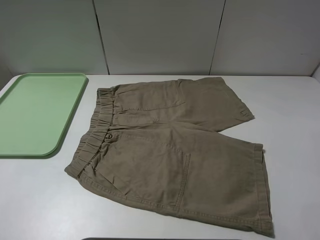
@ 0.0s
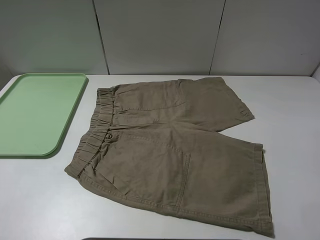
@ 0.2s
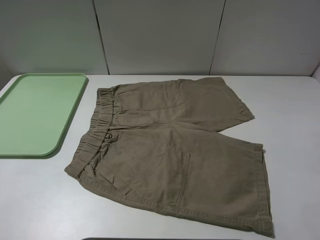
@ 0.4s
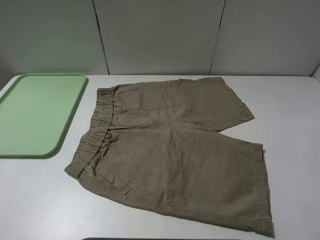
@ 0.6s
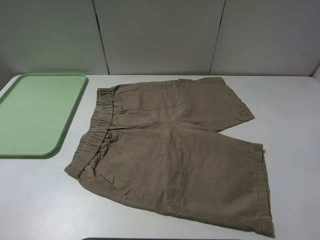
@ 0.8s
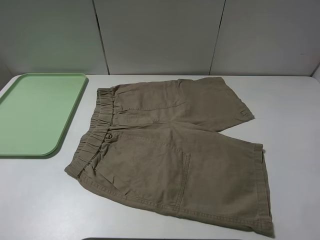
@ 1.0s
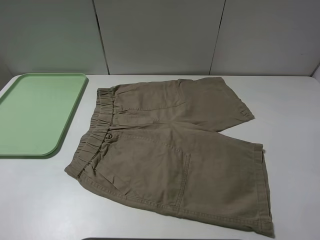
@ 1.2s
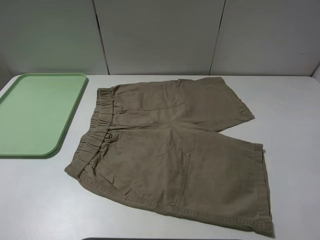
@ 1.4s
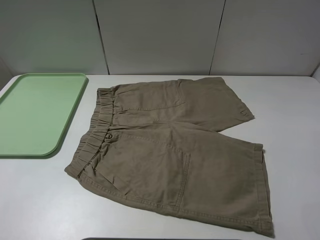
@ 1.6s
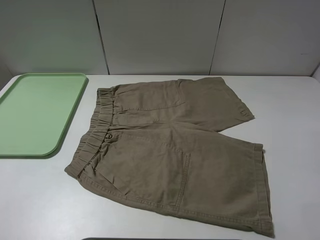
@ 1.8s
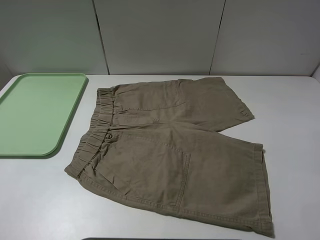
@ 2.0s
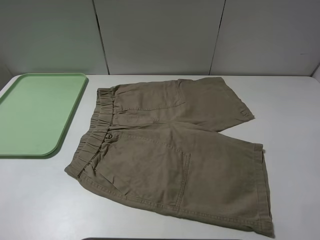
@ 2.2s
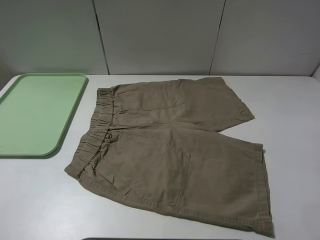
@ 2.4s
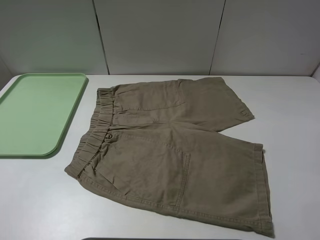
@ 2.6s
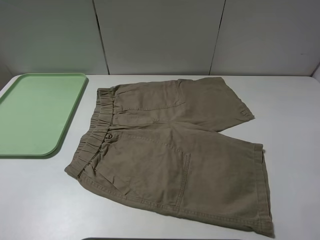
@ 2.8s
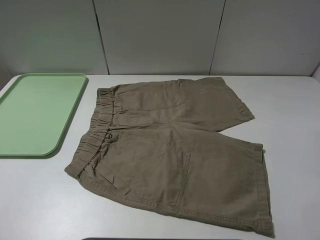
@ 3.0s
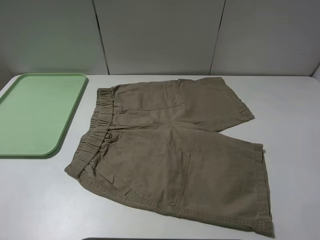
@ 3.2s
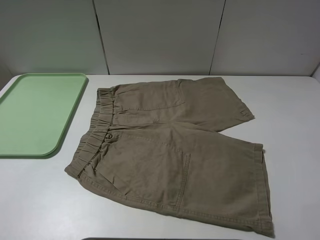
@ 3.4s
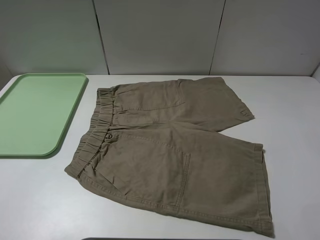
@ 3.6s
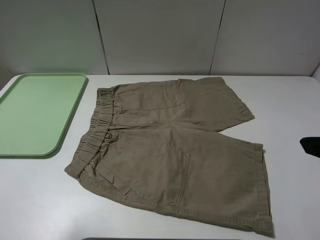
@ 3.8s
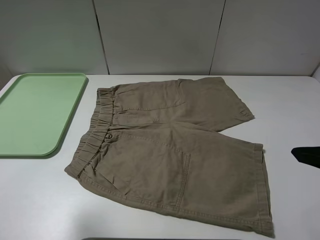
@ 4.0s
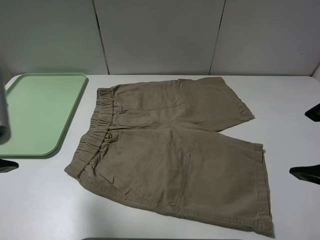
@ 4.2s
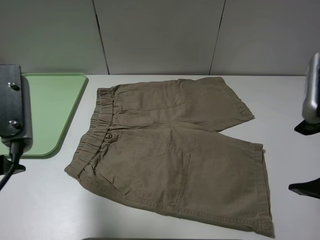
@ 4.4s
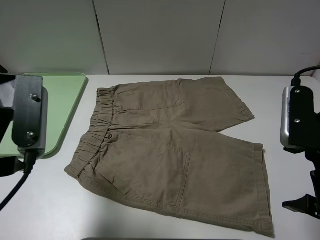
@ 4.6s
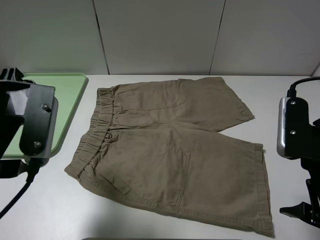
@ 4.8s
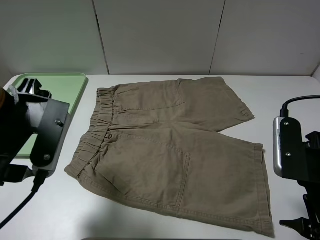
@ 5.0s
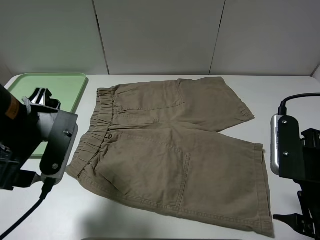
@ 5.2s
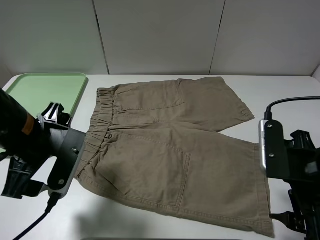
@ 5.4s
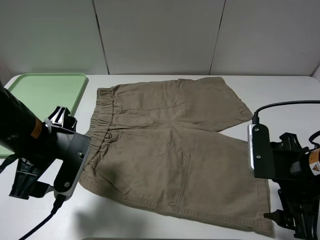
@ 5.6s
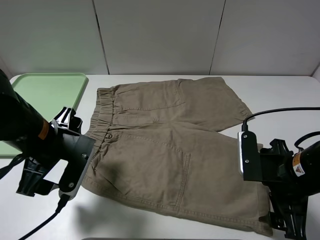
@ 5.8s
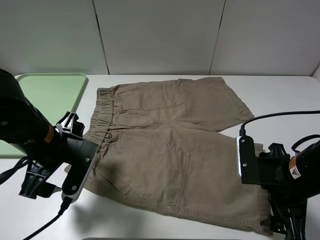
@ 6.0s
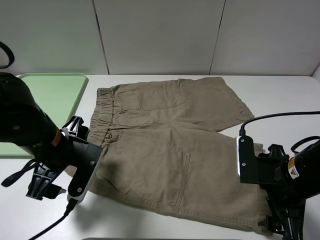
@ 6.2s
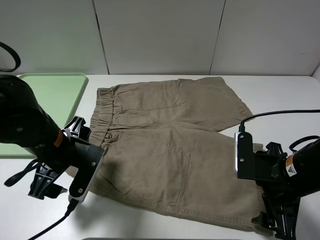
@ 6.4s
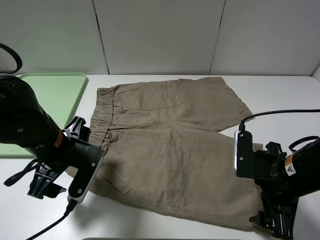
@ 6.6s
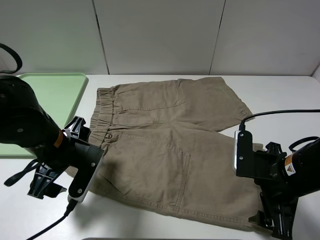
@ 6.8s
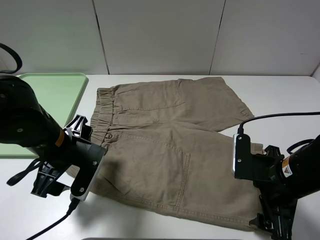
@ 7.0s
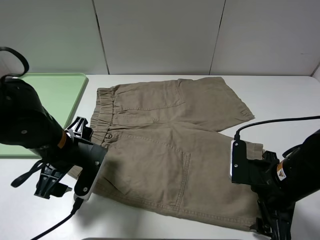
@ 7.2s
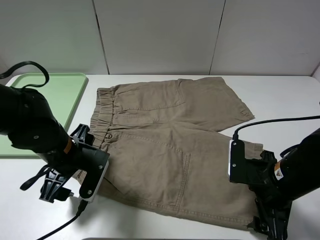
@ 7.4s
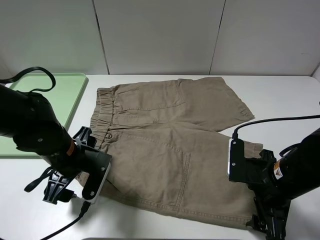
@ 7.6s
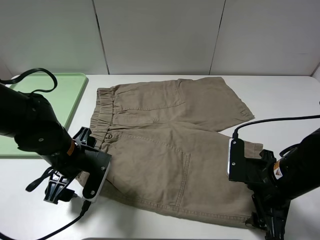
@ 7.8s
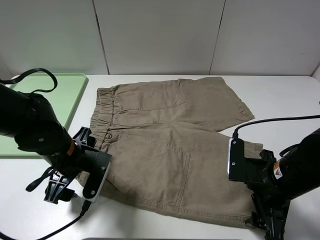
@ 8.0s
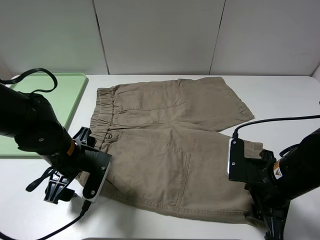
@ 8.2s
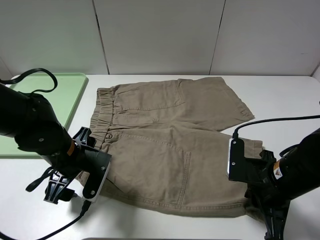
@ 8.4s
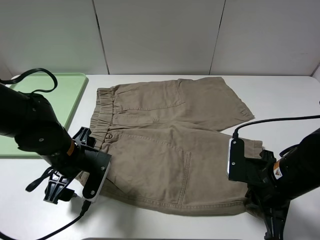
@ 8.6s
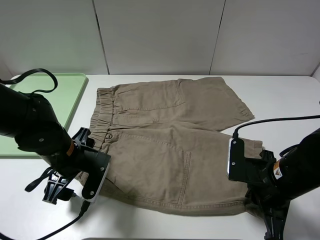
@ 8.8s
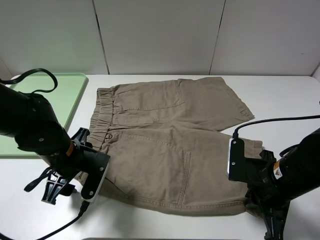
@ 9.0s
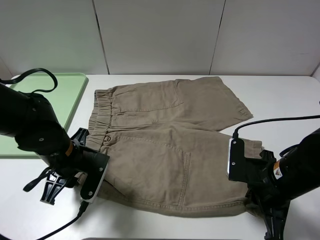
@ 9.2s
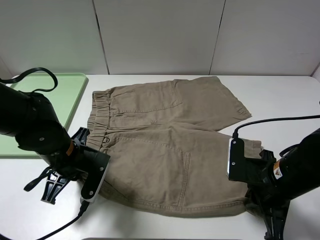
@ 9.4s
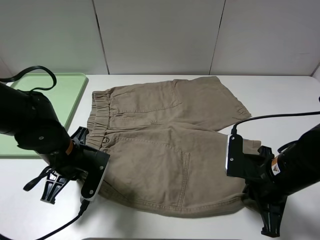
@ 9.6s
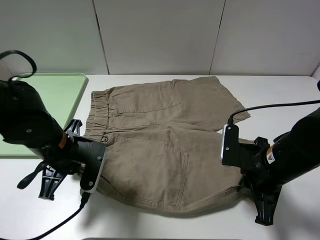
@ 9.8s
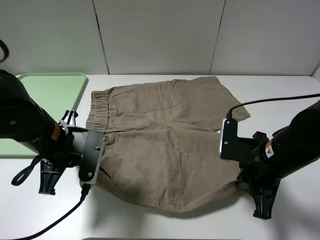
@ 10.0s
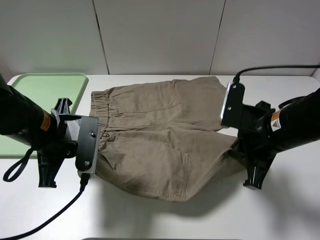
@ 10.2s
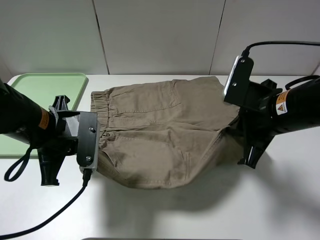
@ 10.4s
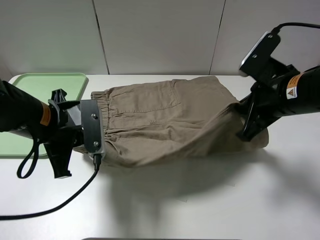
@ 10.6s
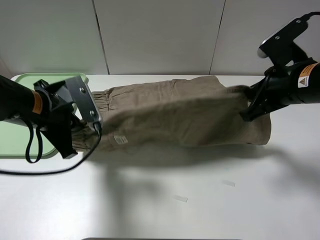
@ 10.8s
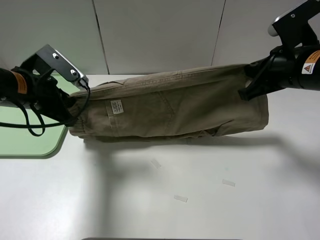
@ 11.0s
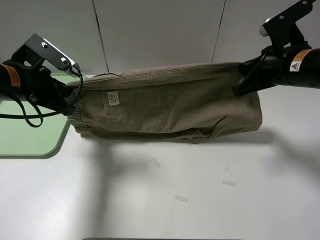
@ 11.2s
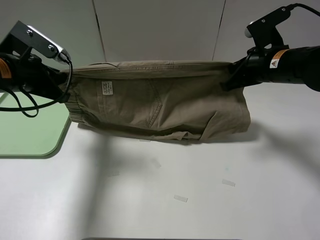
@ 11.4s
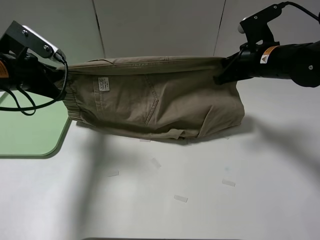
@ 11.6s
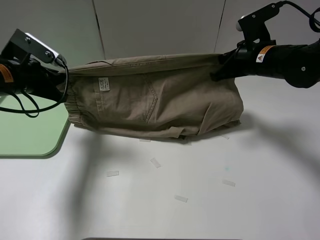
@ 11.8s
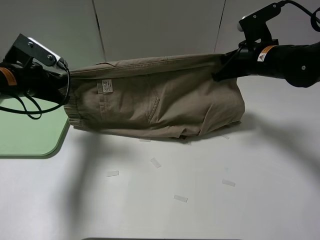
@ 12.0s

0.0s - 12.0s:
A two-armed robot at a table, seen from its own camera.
Task of the whole recording: fold the khaki jeans in half with two grippers, then fold them in half again, and use the left claw to place the folded fold khaki jeans on the tray.
Step, 0.0s - 9.2s: Grasp the khaki trousers with the left gripper.
0.0s - 1.6s: Neither gripper changes place.
3.0s - 4.4s: The left gripper travels forward and to the right by approximately 20 cm. Meanwhile the right gripper goes approximately 15 cm forward and to the left.
4.4s - 6.0s: The grippers both shift downward by approximately 15 cm.
6.0s - 7.6s: The left gripper is displaced downward by some 5 cm.
7.6s - 9.0s: The right gripper closes up.
9.0s - 10.4s: The right gripper heads upward and forward, covering about 10 cm; the left gripper goes some 10 cm upward, and closes.
10.4s - 12.0s: The left gripper is displaced to the left and forward by about 15 cm. The right gripper travels forward by some 15 cm.

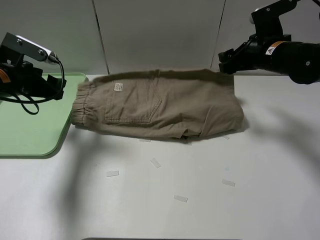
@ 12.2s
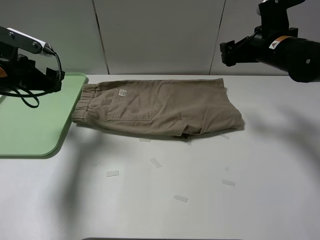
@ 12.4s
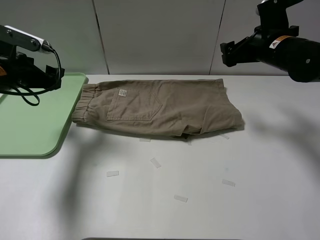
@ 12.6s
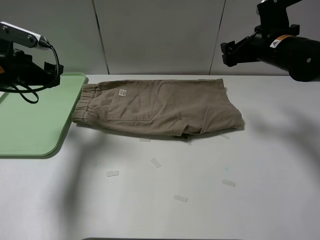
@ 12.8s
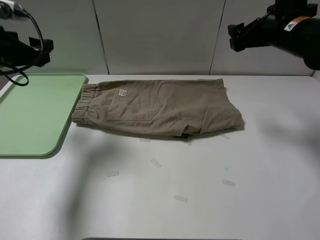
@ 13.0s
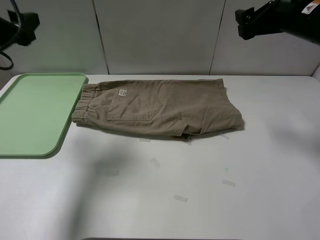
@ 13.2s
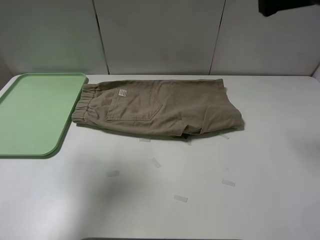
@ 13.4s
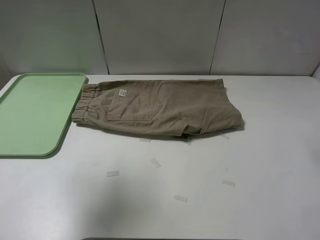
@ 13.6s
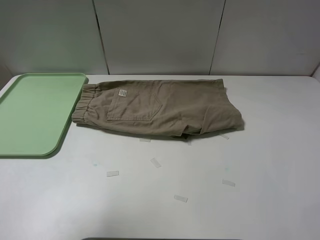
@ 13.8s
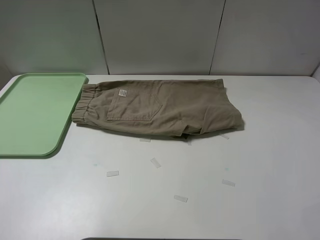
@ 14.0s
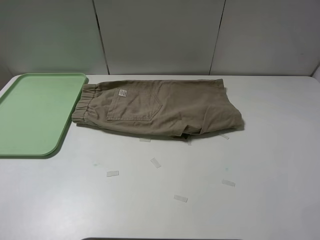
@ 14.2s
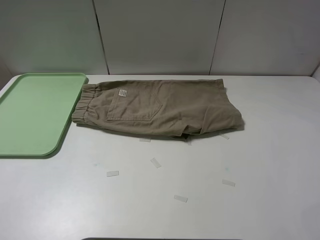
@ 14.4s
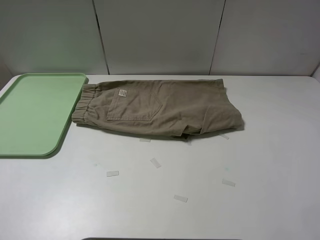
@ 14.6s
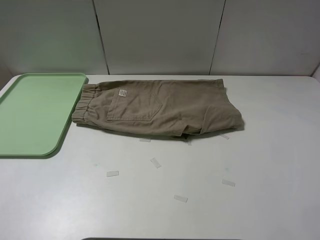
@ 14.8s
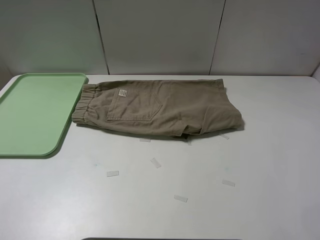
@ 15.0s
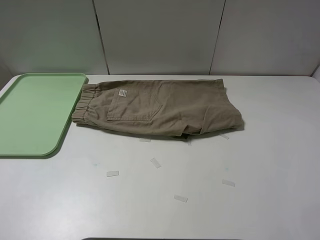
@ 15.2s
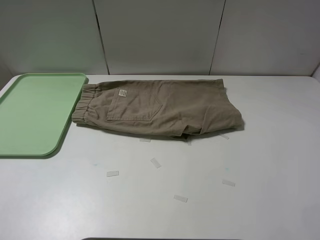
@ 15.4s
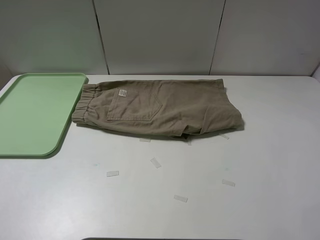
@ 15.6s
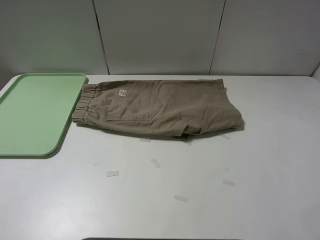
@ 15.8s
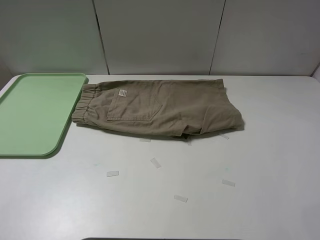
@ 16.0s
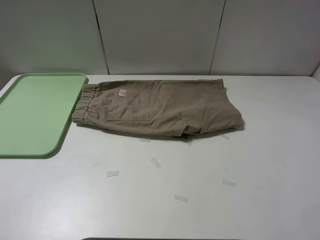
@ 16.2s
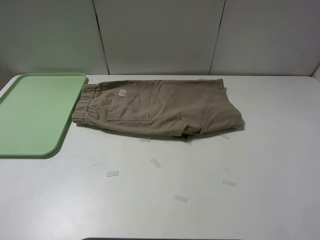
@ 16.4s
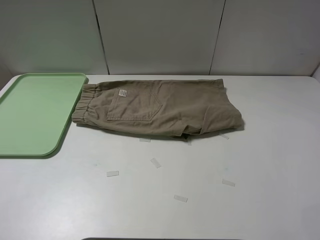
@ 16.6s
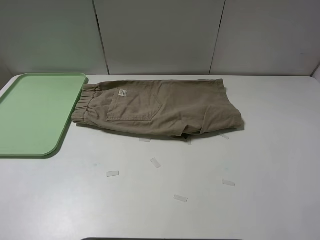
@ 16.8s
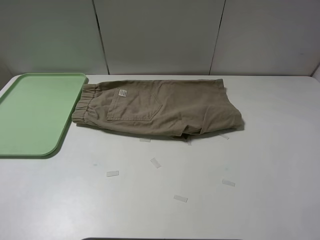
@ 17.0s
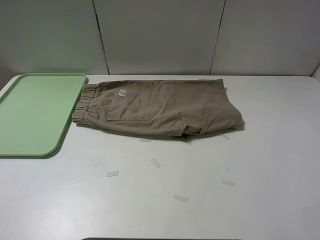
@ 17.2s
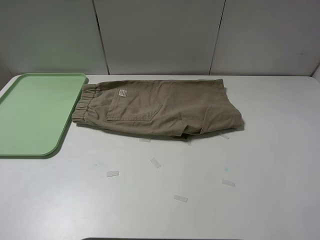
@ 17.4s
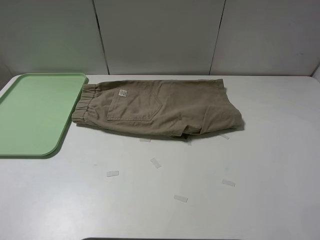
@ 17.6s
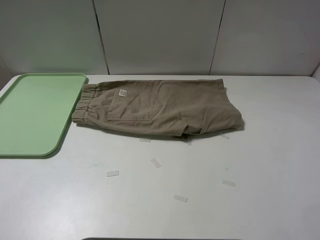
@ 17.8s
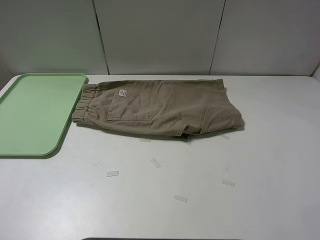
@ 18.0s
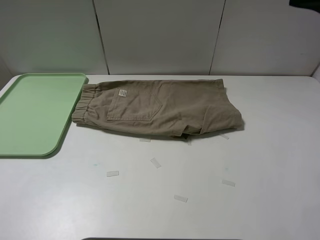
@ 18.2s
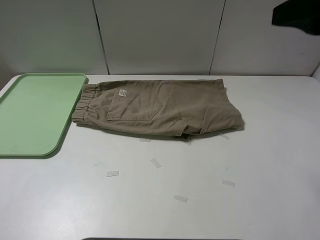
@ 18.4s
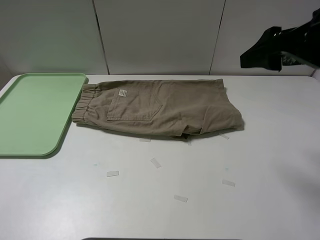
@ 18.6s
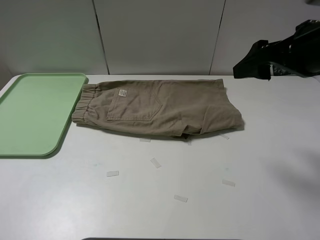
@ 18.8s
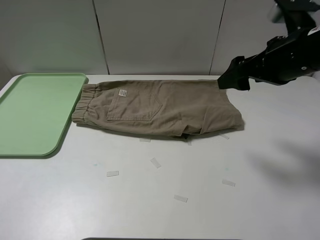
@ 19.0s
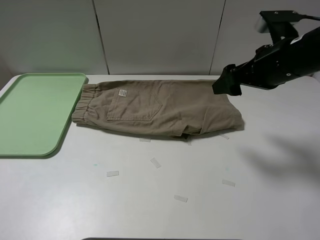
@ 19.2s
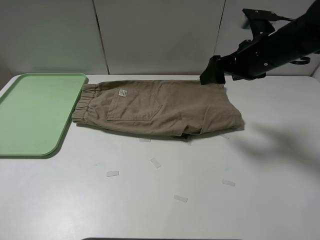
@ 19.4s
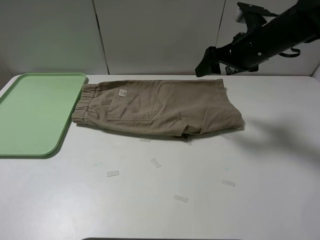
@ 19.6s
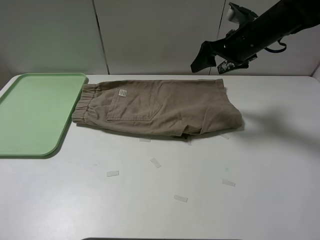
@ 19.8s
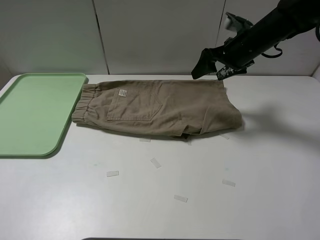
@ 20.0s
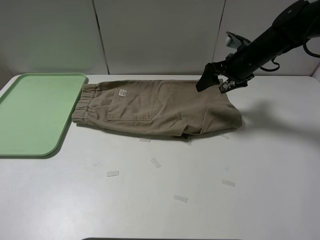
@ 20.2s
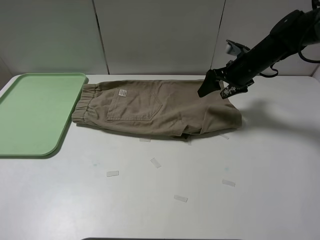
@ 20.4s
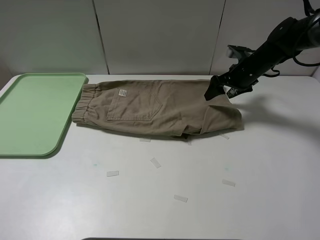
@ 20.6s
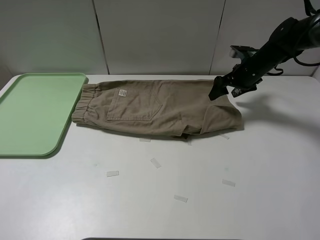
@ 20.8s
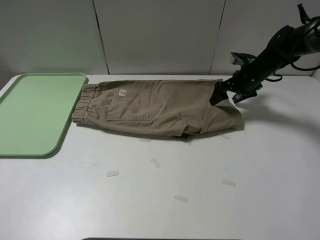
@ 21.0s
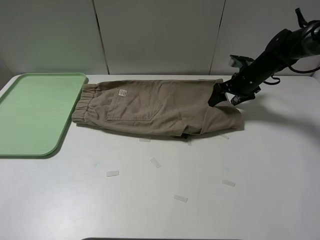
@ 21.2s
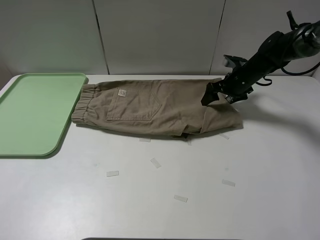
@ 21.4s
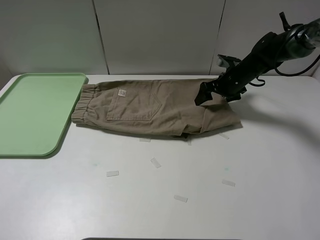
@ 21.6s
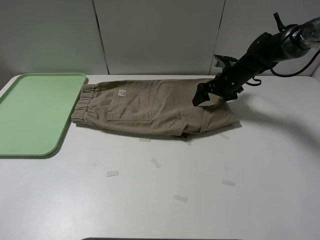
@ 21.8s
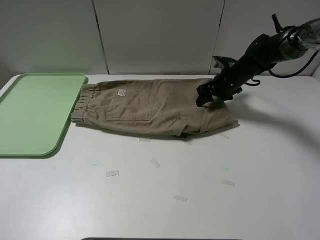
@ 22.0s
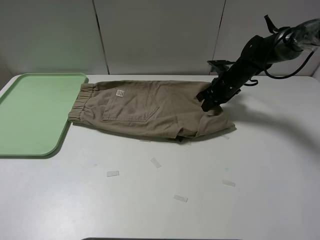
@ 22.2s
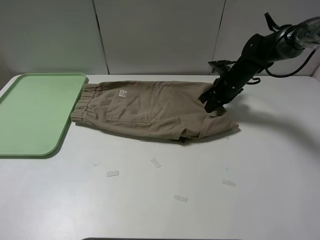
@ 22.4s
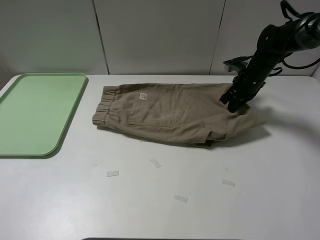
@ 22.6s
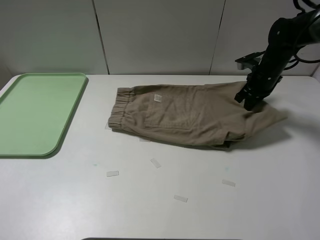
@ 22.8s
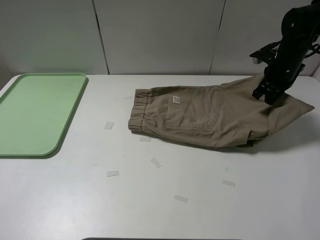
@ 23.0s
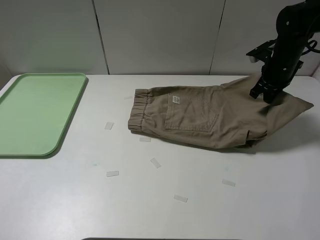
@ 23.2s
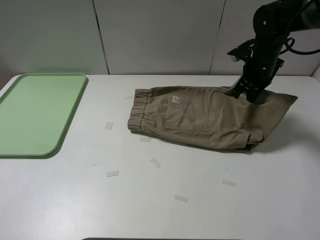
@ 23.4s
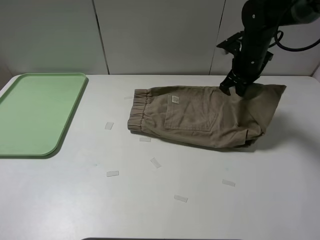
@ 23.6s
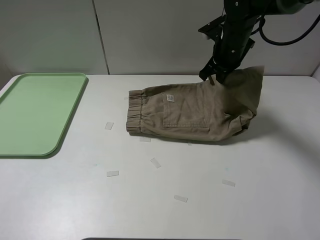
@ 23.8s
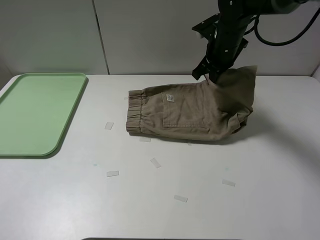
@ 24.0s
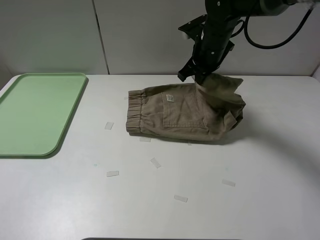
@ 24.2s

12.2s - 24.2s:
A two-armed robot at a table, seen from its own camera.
Task of the whole recording: fold the khaki jeans in half with two grippers, then fold them in half again, and use the left claw to place the folded fold khaki jeans on the tray.
Step, 12.4s - 22.2s: Grasp the khaki trousers with the right gripper.
12.2s - 13.8s: Both grippers travel together upward and backward, some 25 cm.
13.8s - 15.2s: The left gripper shifts approximately 10 cm backward and downward.
18.2s - 19.8s: The right gripper heads forward and downward, covering some 25 cm.
19.8s - 21.2s: The right gripper moves downward, to the right and forward, approximately 15 cm.
21.2s - 22.6s: The right gripper closes up.
22.6s - 24.2s: The right gripper shifts about 15 cm to the left and upward.
